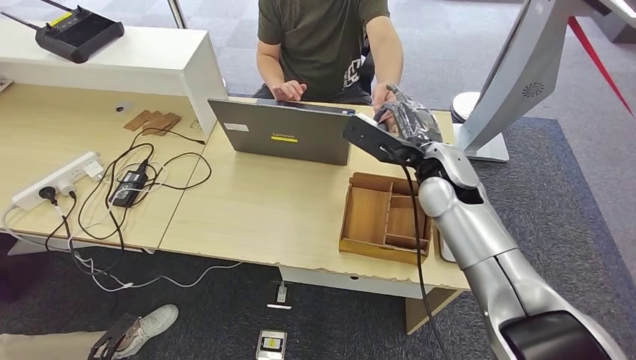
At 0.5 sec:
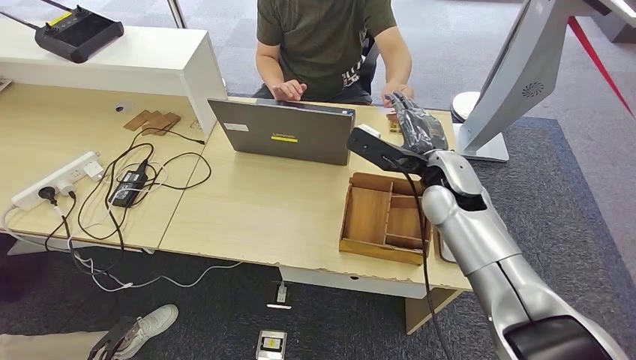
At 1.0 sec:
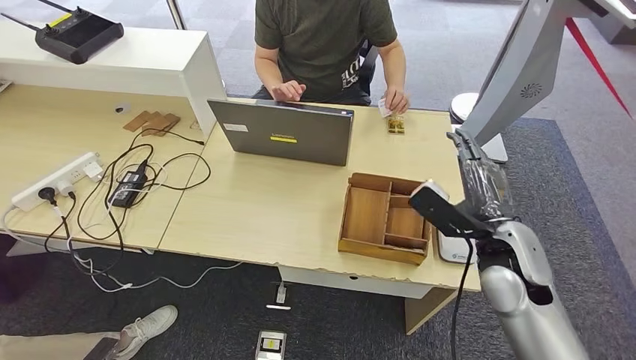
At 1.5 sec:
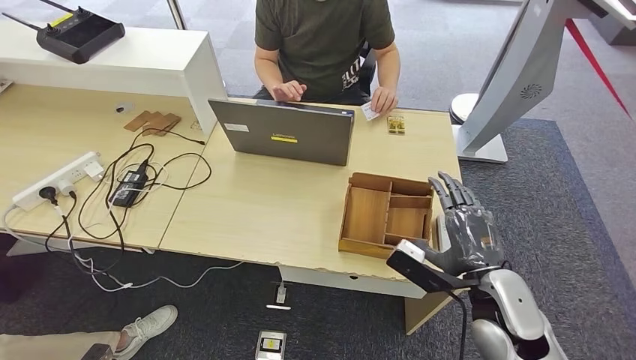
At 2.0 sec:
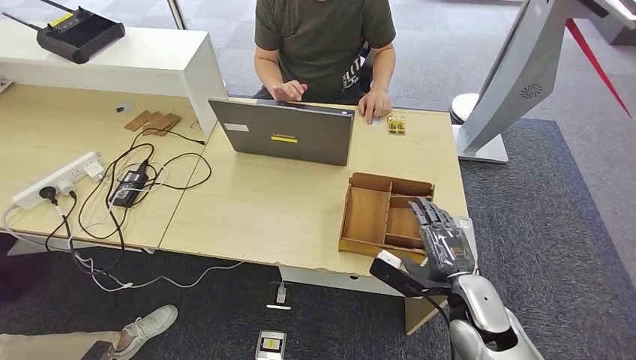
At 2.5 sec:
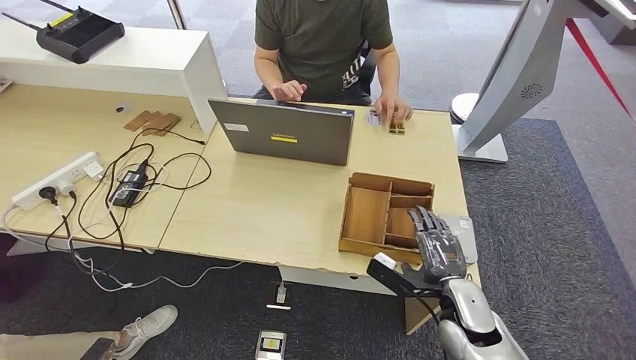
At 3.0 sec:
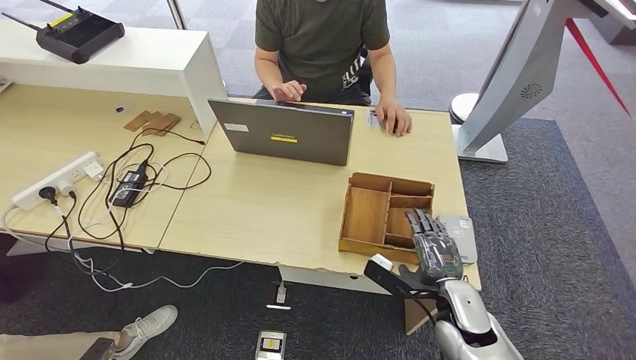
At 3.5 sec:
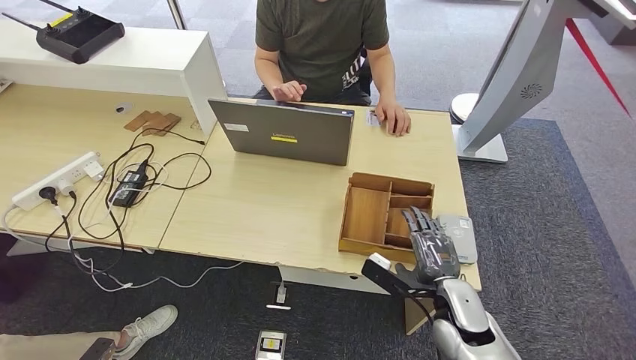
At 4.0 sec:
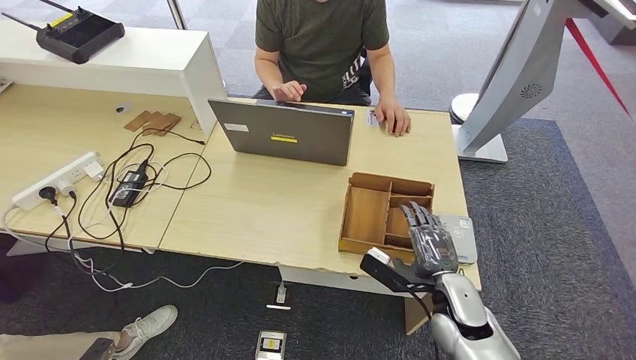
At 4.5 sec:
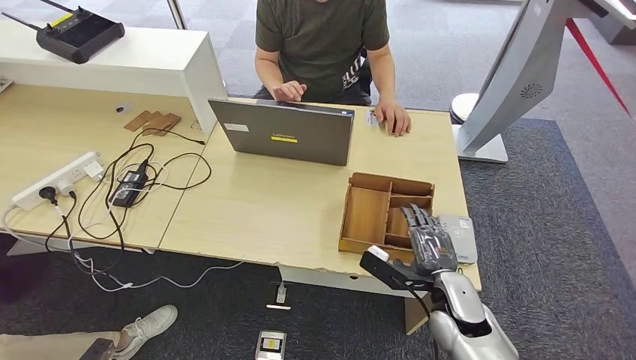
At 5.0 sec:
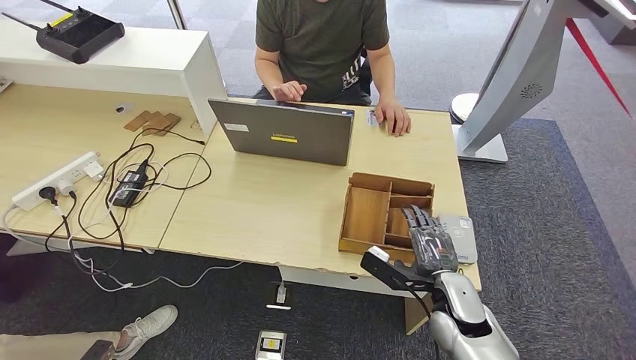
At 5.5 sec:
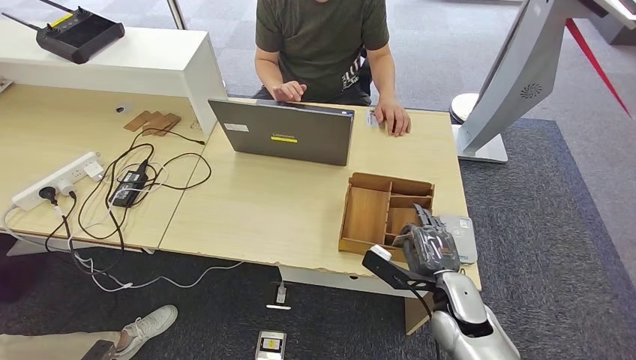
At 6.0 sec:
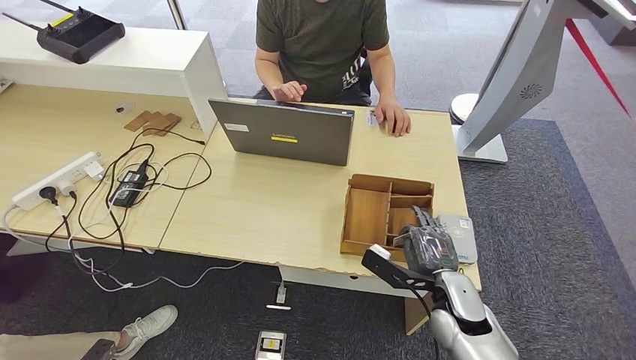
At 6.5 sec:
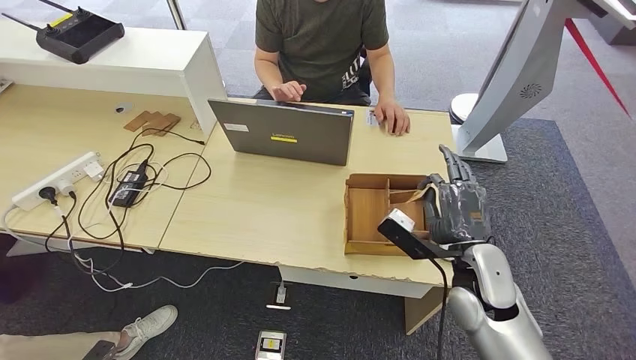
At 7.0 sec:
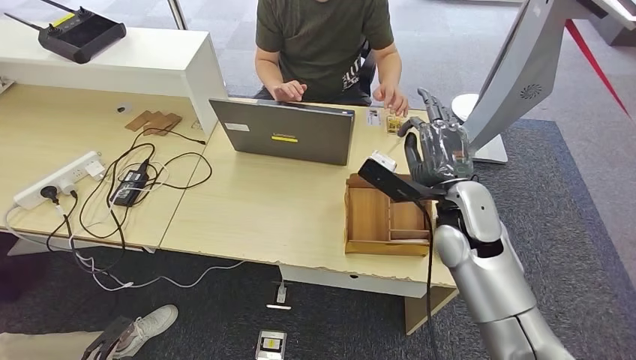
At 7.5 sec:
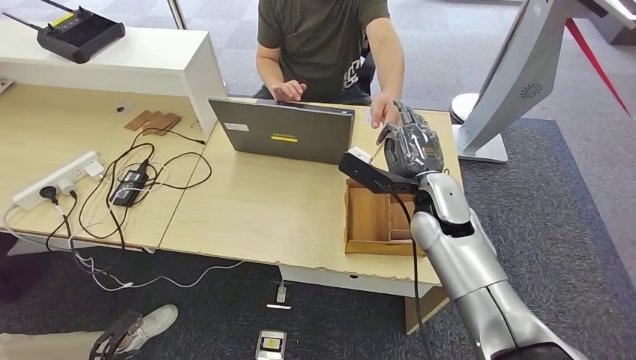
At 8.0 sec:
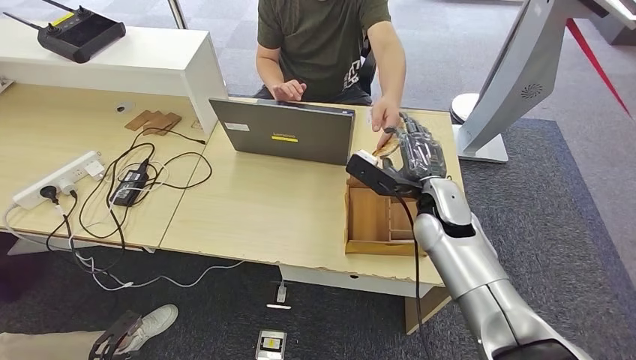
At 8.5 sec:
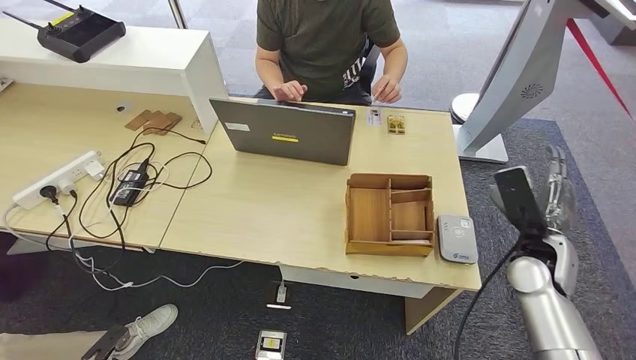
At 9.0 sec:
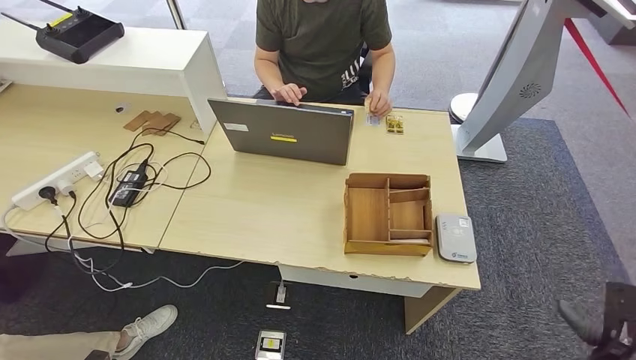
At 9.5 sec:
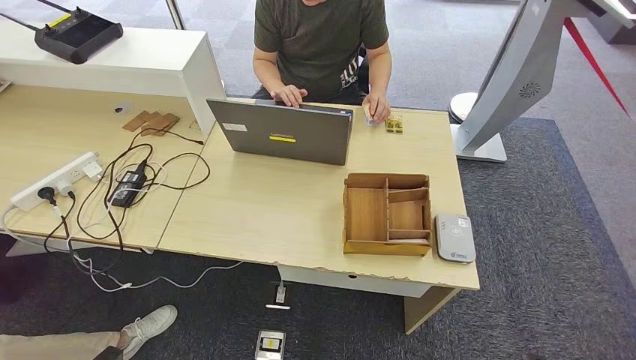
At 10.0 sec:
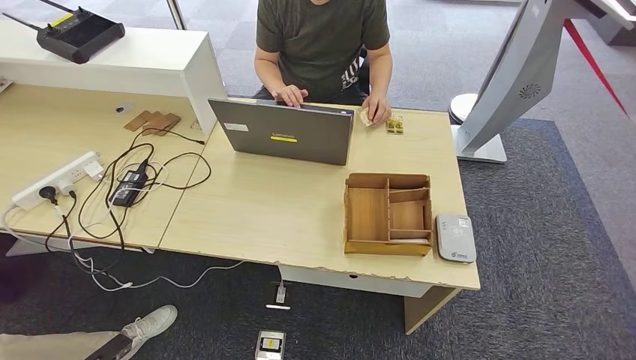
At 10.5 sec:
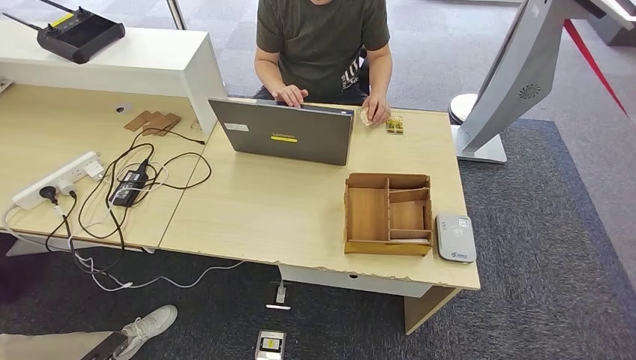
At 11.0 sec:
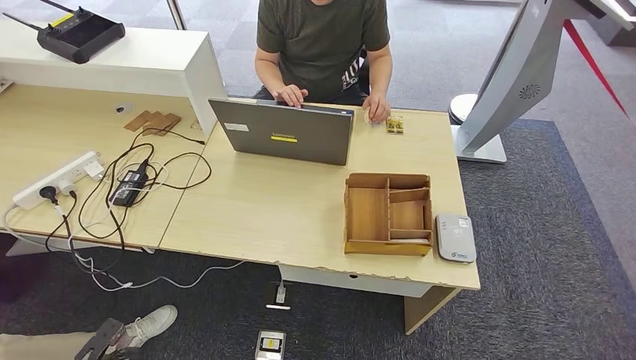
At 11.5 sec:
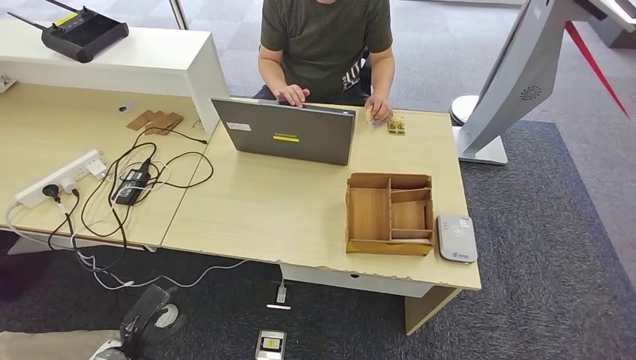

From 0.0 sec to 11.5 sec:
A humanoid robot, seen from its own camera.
Step, from 1.5 sec to 6.5 sec: Pick up the room key from the key card box.
Step, from 7.0 sec to 11.5 sec: Hand the room key to the person.
From 0.0 sec to 2.0 sec: The right hand is displaced backward and downward by approximately 20 cm. Meanwhile the left hand is displaced backward by some 5 cm.
From 2.0 sec to 6.0 sec: The hands stay close to where they were, moving slightly.
From 6.0 sec to 7.5 sec: The right hand travels upward and forward by approximately 20 cm. Meanwhile the left hand moves forward, about 5 cm.
From 7.5 sec to 9.5 sec: The left hand goes some 5 cm backward. Meanwhile the right hand goes approximately 50 cm downward, backward and to the right.
From 9.5 sec to 11.5 sec: The left hand shifts approximately 10 cm forward and to the right; the right hand heads to the left, covering some 5 cm.
